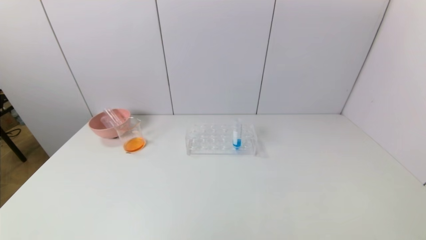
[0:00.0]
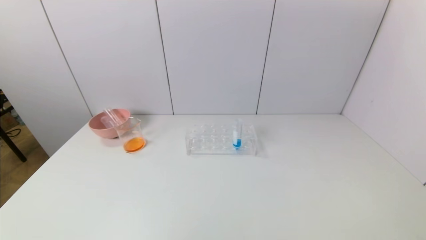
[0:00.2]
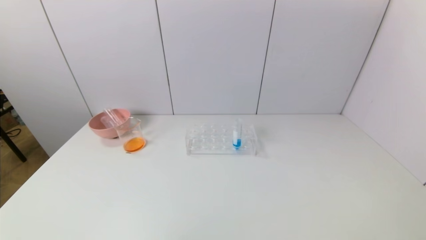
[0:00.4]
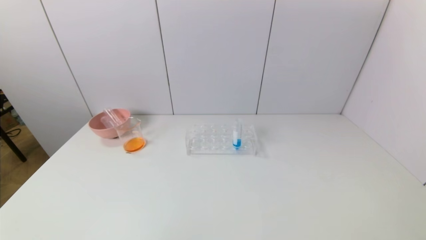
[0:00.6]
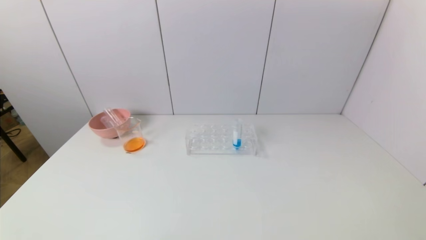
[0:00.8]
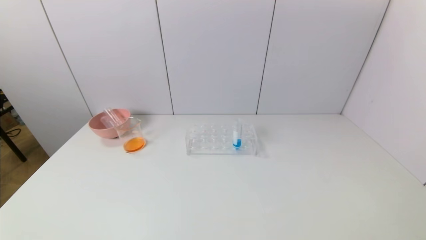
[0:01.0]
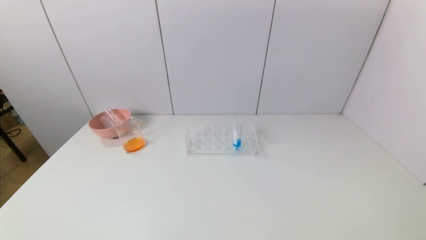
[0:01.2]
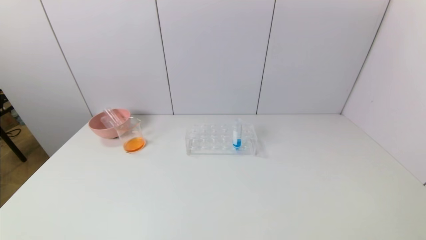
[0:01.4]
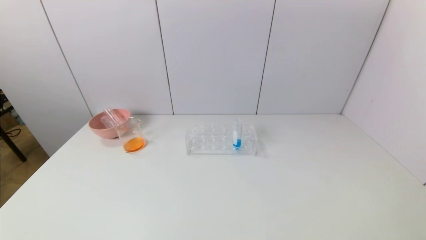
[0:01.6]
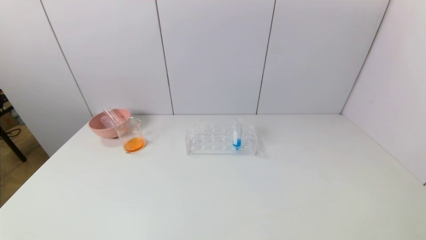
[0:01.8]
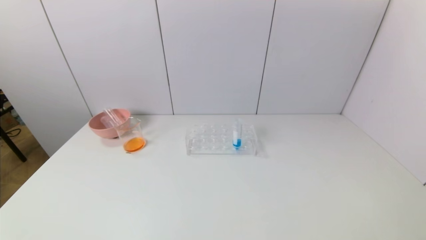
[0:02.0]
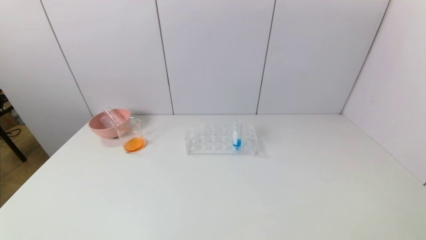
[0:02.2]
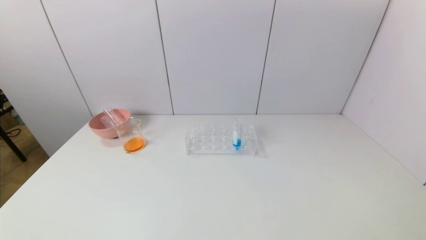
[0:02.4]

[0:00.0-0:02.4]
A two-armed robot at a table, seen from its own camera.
Task of the whole recording: pick up the test tube with yellow pigment and the test tube with red pigment by grippers and pour them into the beaker.
0:01.2 to 0:02.4: Both grippers stay about where they are.
